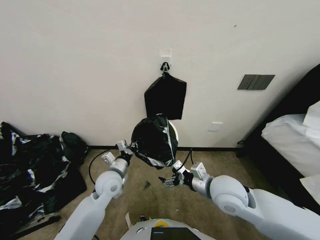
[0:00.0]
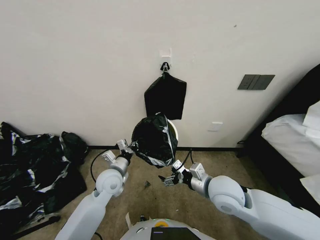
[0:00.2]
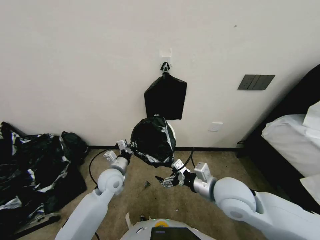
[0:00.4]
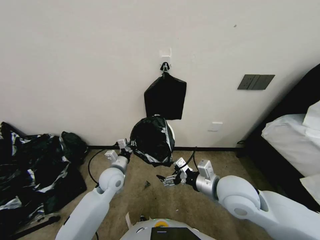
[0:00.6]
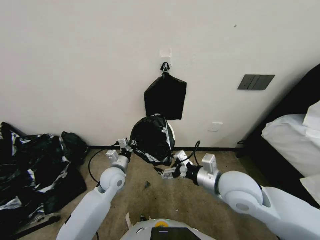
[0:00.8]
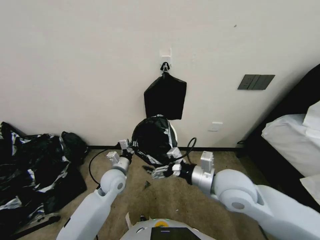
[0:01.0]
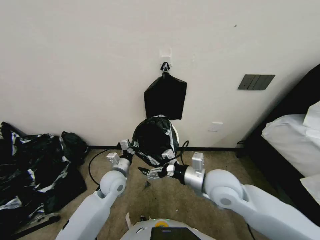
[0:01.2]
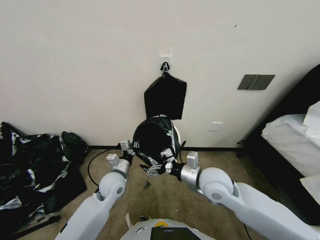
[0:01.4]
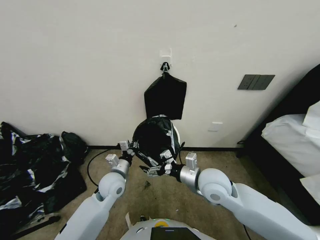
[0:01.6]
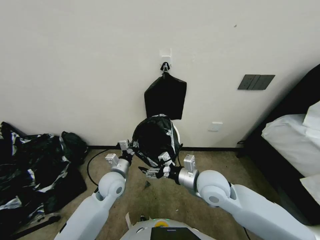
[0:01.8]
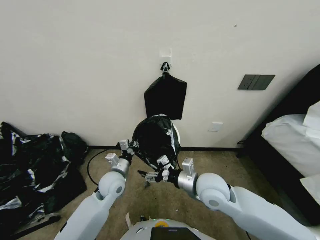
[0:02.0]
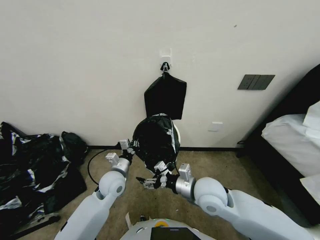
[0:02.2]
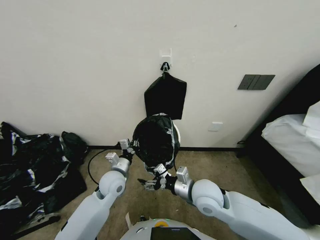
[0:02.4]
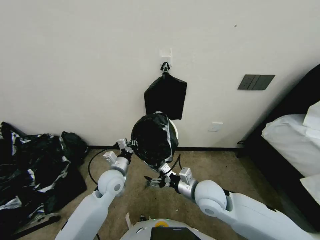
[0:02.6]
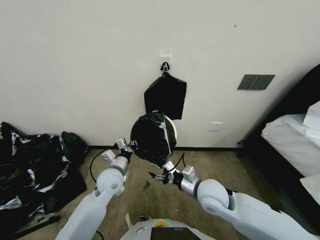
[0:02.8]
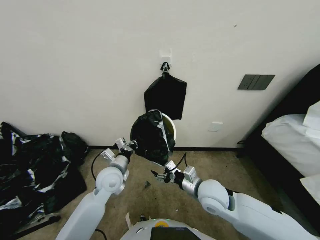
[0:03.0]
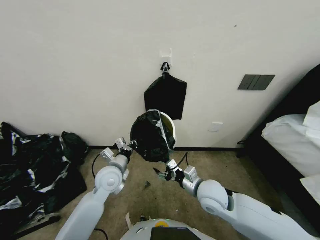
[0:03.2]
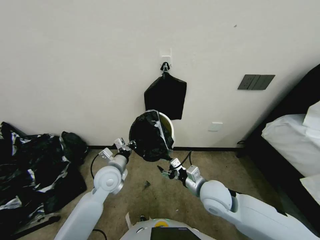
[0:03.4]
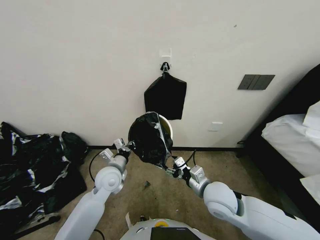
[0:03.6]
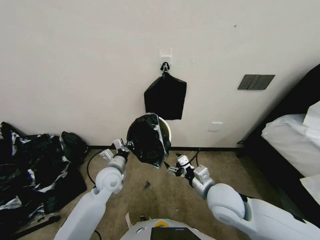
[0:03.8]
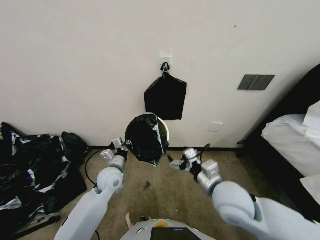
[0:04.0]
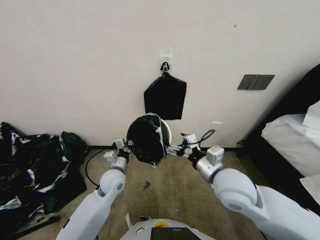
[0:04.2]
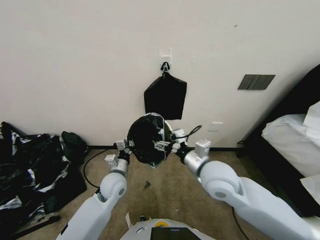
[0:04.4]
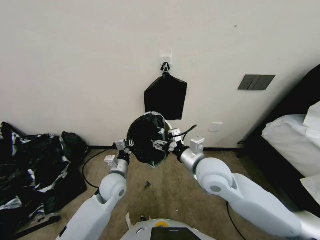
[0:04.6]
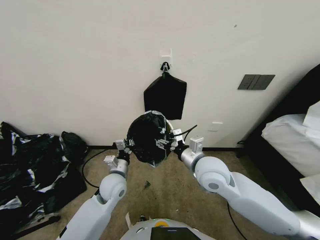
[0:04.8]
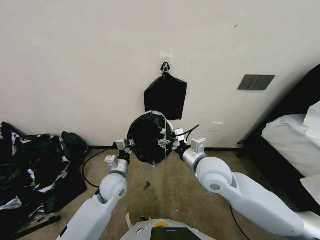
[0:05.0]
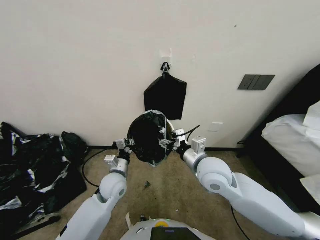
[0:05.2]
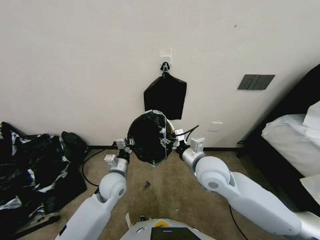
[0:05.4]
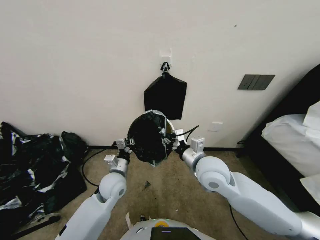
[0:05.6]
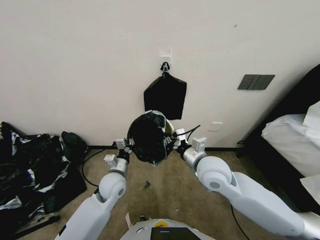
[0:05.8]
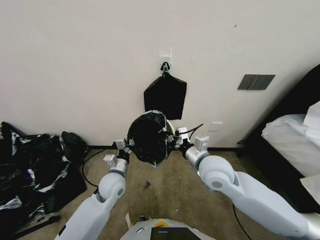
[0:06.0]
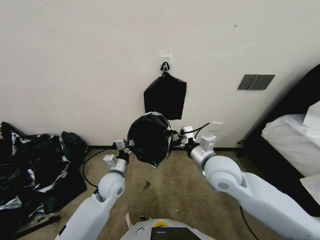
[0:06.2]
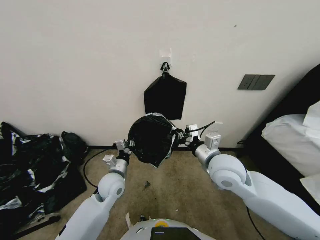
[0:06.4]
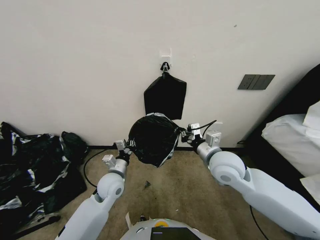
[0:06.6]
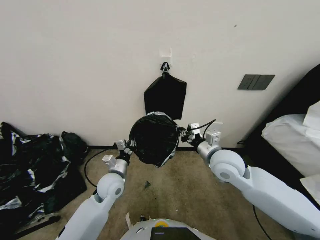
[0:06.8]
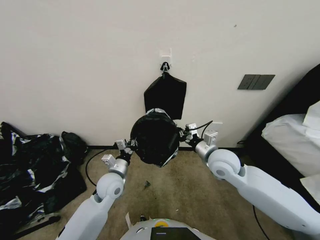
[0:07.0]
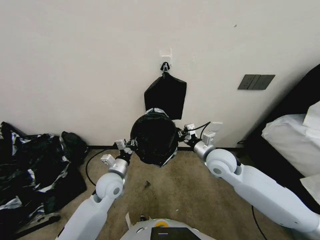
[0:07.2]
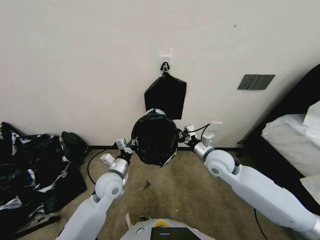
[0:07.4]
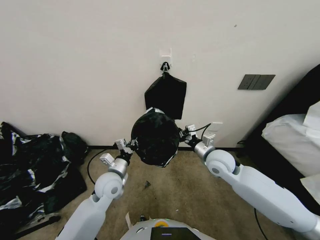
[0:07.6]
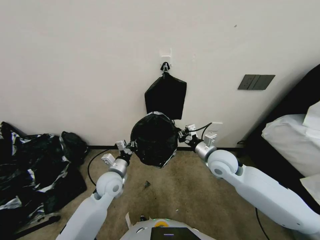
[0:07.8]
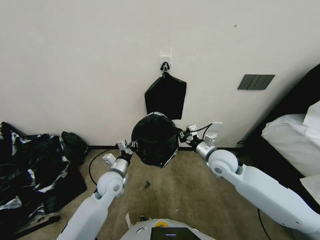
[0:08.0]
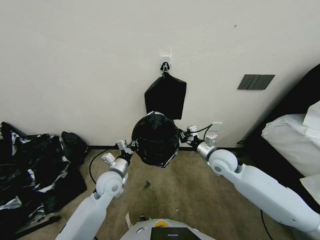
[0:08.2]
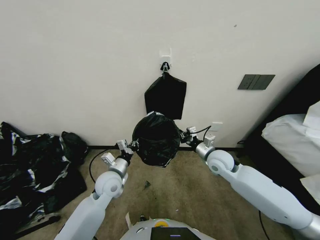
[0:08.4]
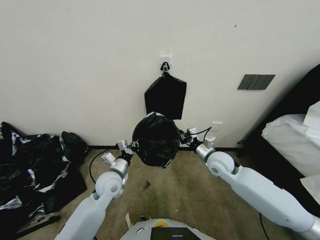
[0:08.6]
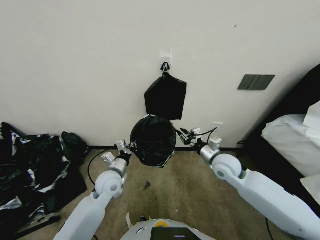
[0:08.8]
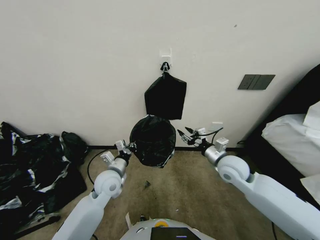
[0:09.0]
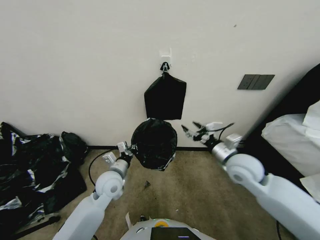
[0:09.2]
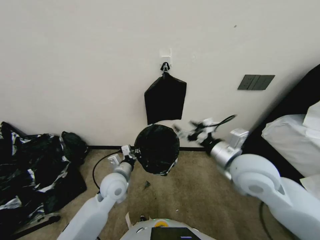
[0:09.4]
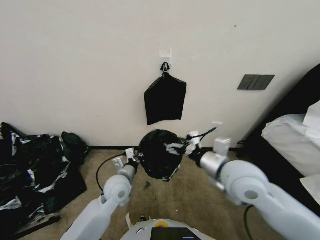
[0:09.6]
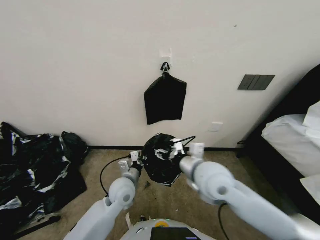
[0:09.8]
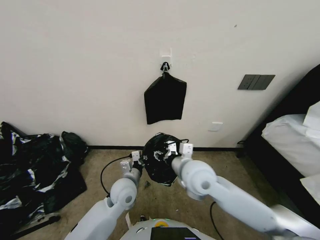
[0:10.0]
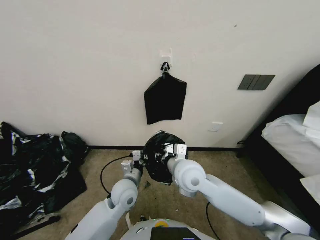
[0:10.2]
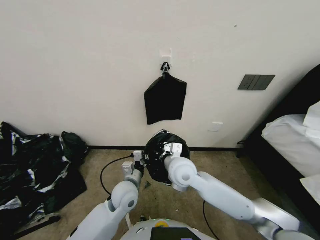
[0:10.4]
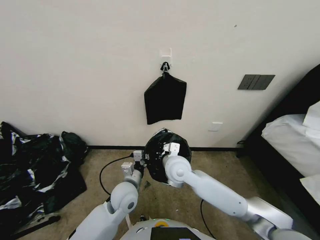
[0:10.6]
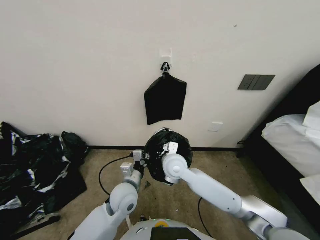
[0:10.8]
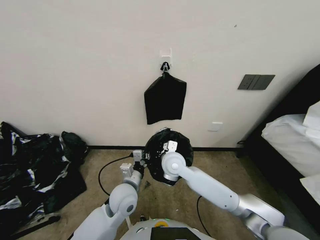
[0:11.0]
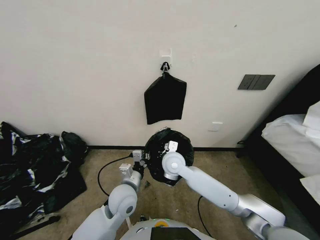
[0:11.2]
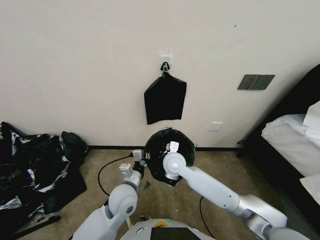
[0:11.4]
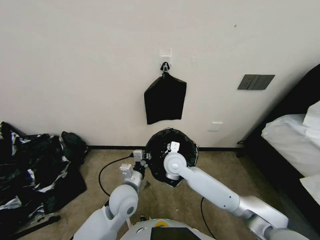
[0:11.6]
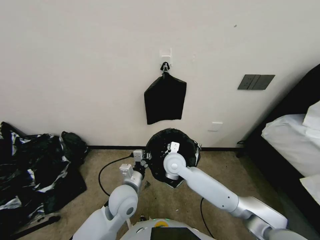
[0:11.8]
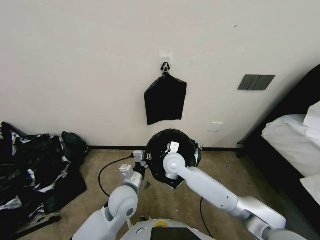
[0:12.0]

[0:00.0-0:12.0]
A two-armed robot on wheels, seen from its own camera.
Task of the whole recording: Place a trash bag onto the trash bin.
1.6 to 3.0 s: The right gripper moves downward, roughly 5 cm.
3.0 to 4.4 s: The right gripper goes roughly 10 cm upward.
4.4 to 6.0 s: The right gripper closes up.
6.0 to 7.6 s: The right gripper heads to the right, forward and downward, covering approximately 10 cm.
7.6 to 9.0 s: The right gripper opens up.
9.0 to 10.4 s: The right gripper shifts roughly 20 cm to the left, and opens, then closes once more; the left gripper shifts roughly 5 cm to the right.
10.4 to 12.0 s: The right gripper travels forward and downward by some 10 cm.

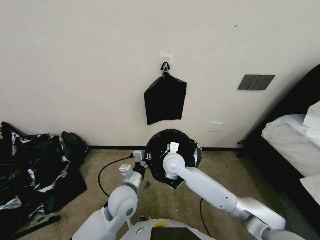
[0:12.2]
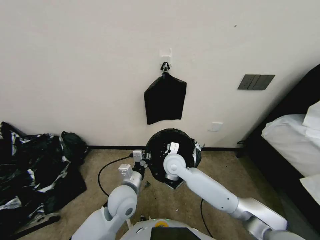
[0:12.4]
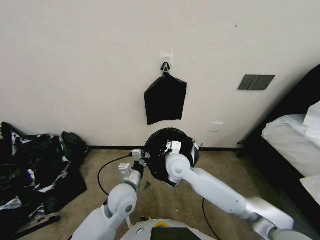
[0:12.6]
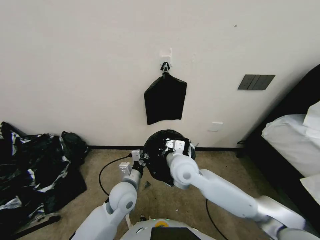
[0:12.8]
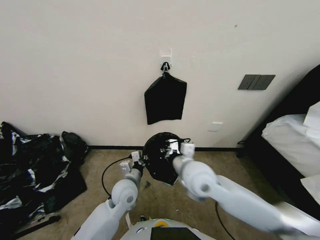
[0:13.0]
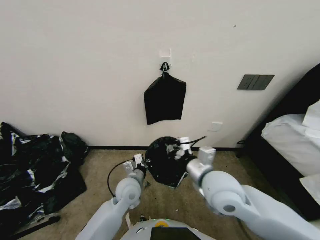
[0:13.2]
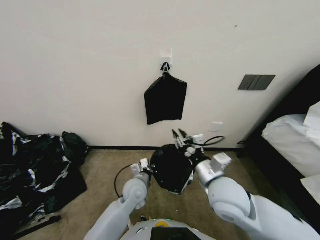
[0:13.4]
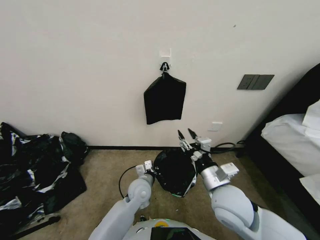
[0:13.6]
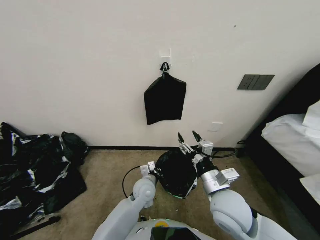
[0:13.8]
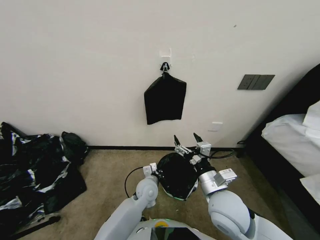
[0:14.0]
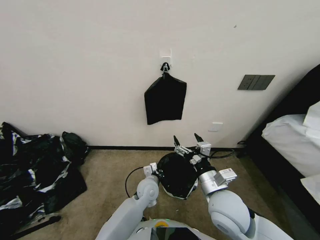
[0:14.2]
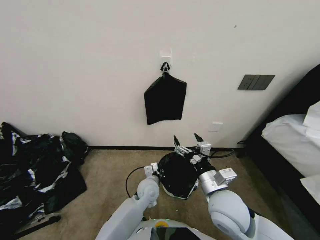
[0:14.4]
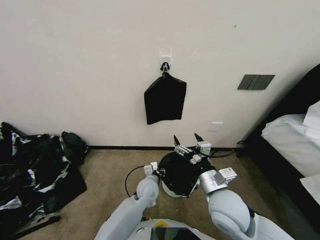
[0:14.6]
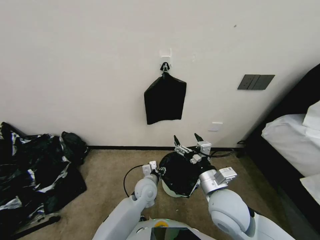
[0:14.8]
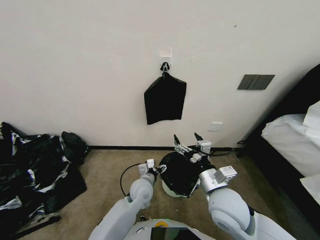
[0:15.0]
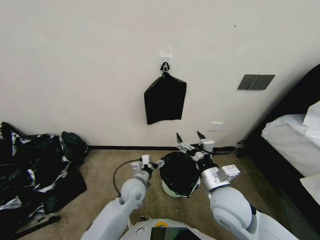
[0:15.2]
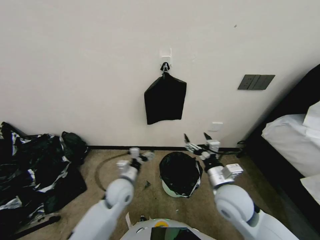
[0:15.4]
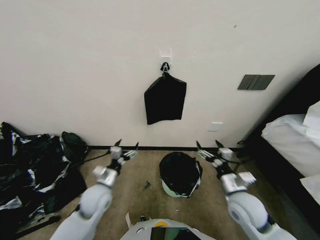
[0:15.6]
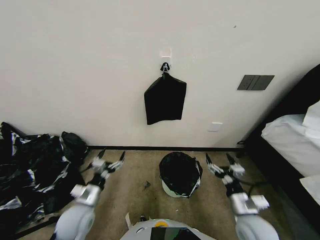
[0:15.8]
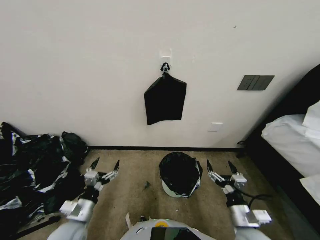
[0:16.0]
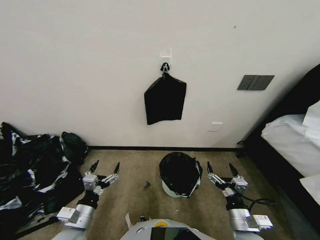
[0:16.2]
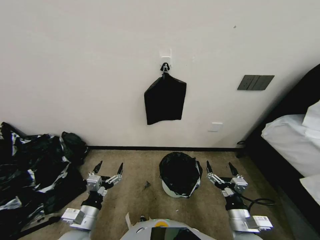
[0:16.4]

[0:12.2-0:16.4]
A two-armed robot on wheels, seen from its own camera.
Task of the whole recording: Place a trash bag onto the trash bin.
12.2 to 13.6 s: The left gripper moves downward, about 5 cm; the right gripper is displaced backward, to the right and upward by approximately 20 cm, and opens.
13.6 to 15.0 s: The right gripper opens up, while the left gripper opens up.
15.0 to 16.4 s: The right gripper shifts approximately 15 cm downward, backward and to the right. Meanwhile the left gripper goes some 25 cm to the left and backward.

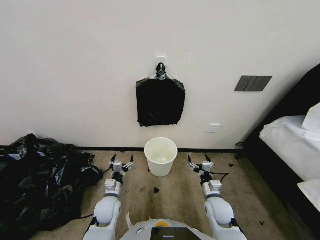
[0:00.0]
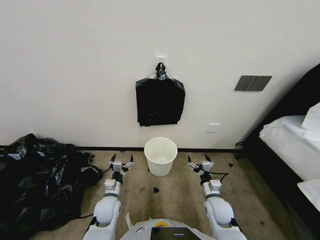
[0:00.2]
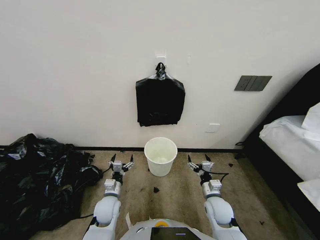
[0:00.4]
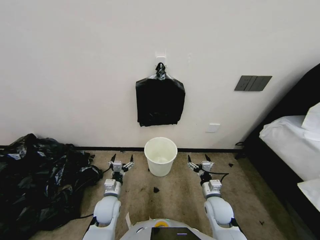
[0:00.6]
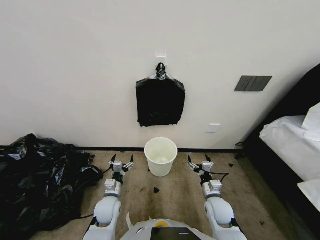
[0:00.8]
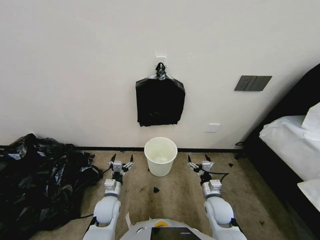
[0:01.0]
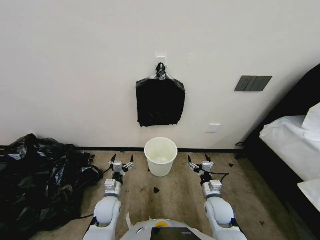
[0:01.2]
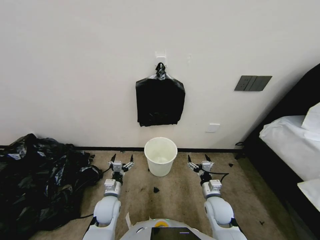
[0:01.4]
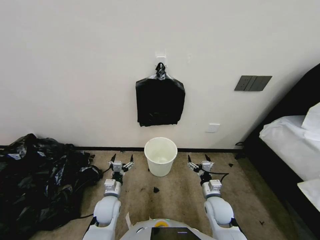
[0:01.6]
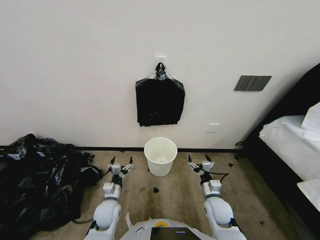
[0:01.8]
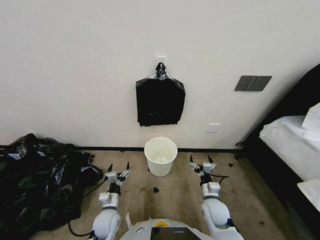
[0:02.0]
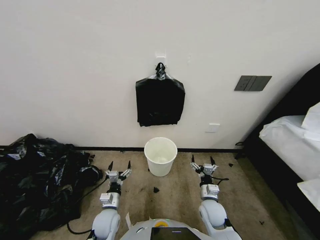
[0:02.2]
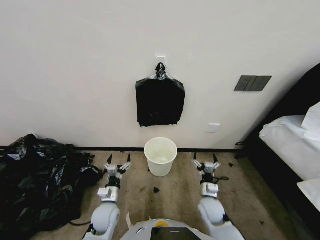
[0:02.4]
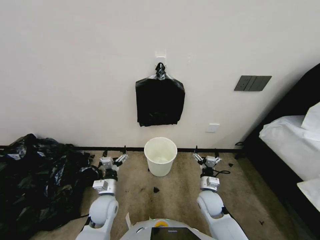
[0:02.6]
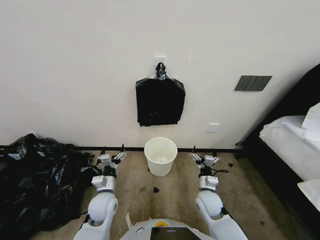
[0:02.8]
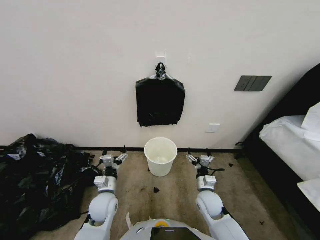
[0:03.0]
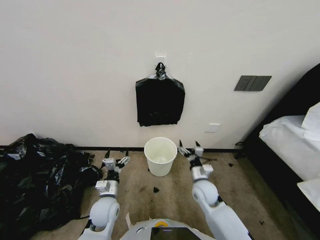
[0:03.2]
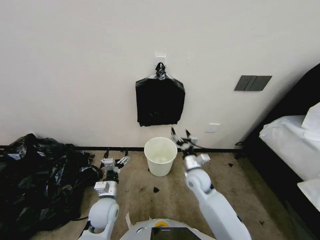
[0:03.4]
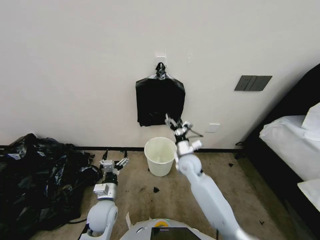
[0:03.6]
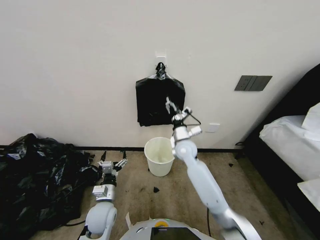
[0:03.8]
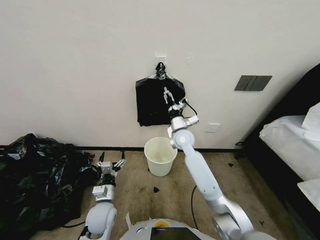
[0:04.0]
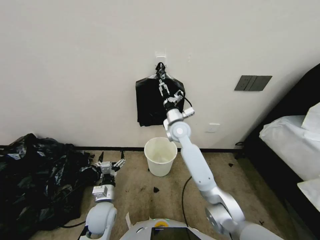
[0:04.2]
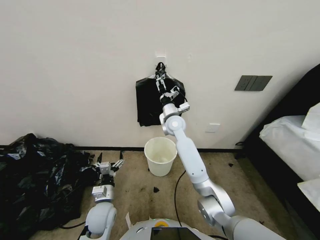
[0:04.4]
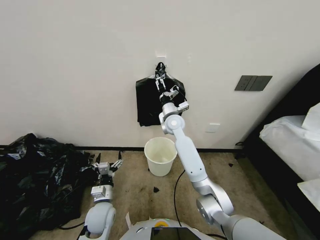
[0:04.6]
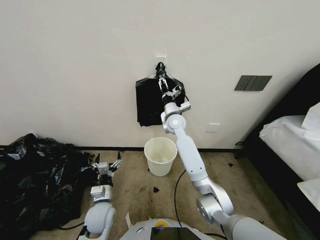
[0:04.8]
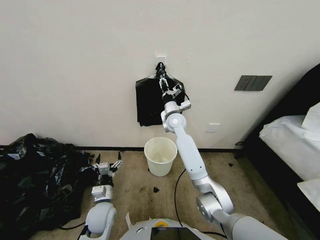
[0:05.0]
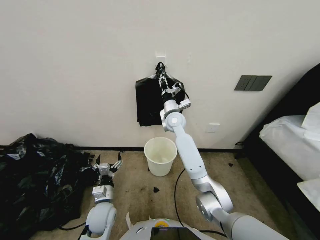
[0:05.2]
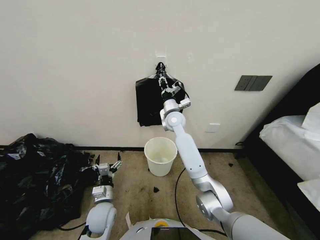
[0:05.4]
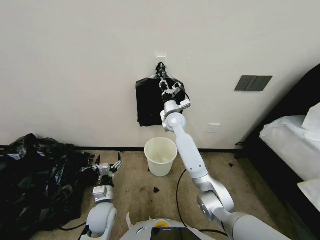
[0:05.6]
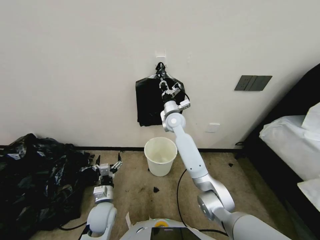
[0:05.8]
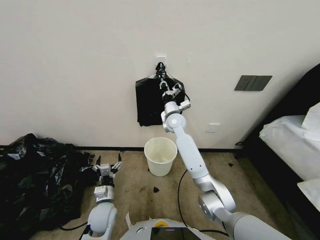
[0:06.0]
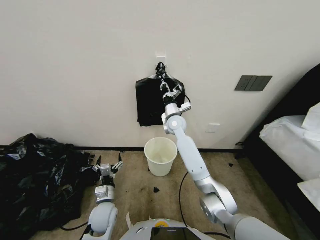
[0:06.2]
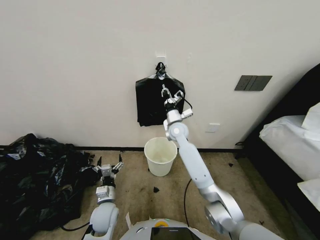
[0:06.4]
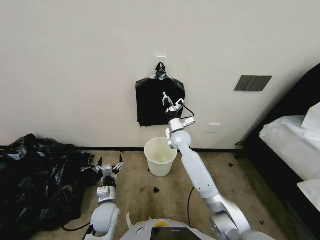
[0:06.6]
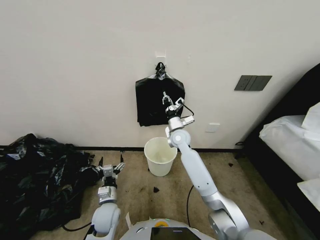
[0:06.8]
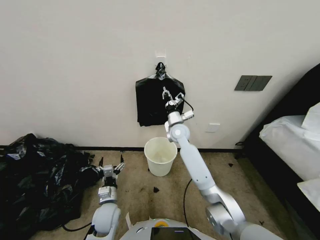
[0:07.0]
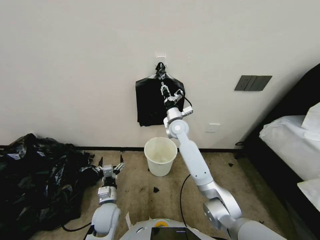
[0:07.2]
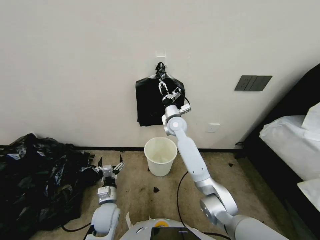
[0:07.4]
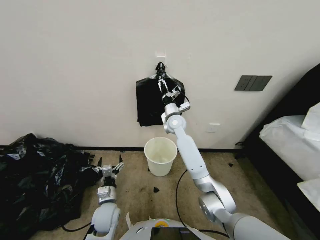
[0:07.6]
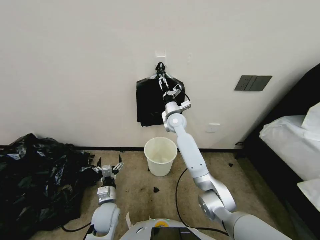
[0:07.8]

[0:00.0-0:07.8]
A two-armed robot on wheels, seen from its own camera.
Task of the whole recording: Place a trash bag onto the trash bin.
1.6 to 3.2 s: The right gripper shifts by approximately 5 cm.
3.2 to 4.6 s: The right gripper shifts about 35 cm forward, upward and to the left.
4.6 to 6.2 s: The right gripper closes its fingers.
6.2 to 7.8 s: The right gripper opens its fingers.
